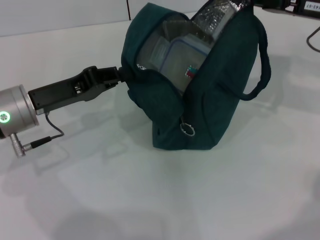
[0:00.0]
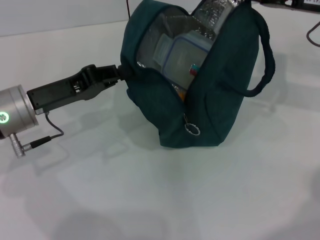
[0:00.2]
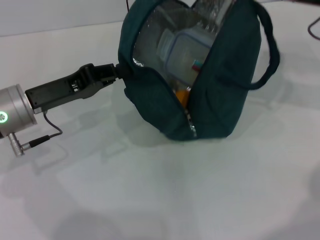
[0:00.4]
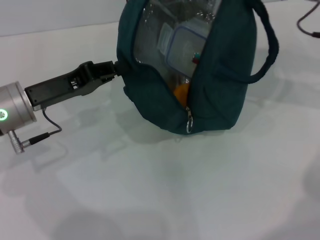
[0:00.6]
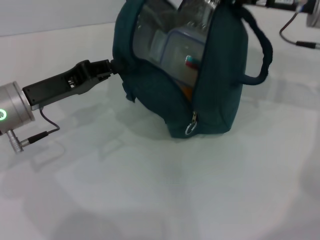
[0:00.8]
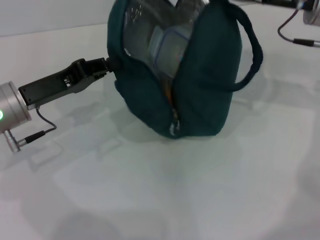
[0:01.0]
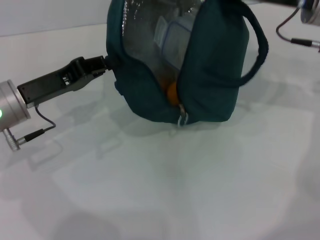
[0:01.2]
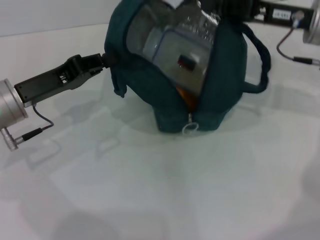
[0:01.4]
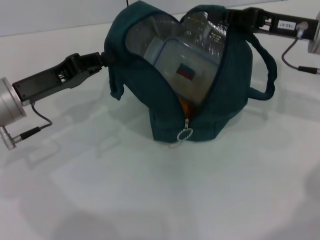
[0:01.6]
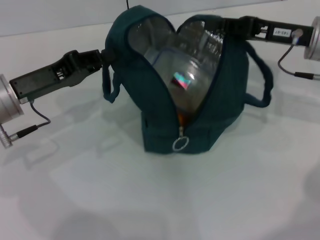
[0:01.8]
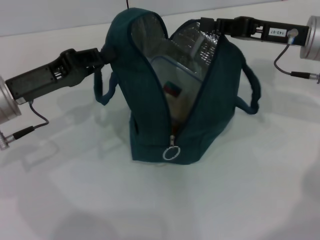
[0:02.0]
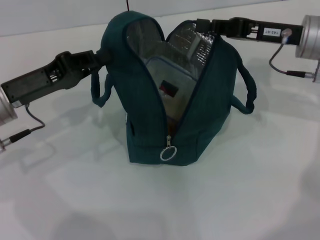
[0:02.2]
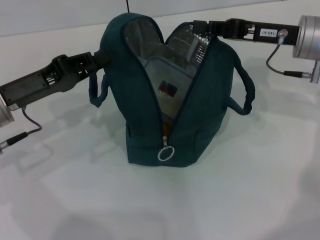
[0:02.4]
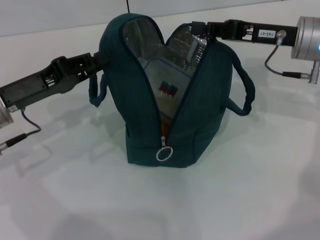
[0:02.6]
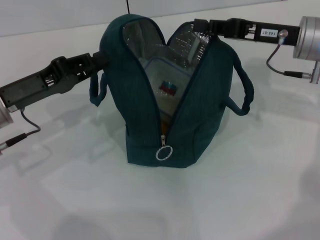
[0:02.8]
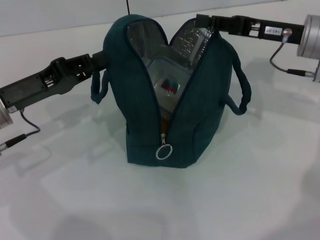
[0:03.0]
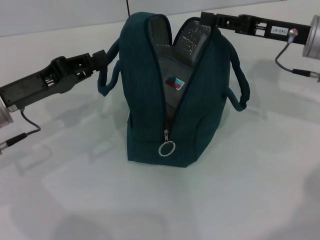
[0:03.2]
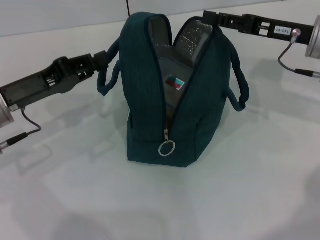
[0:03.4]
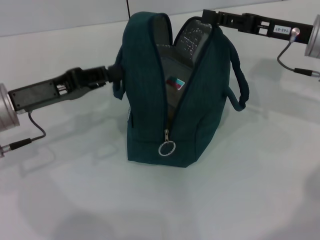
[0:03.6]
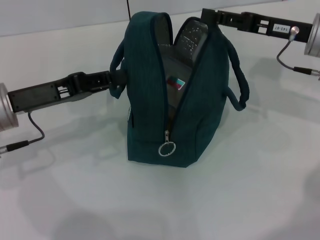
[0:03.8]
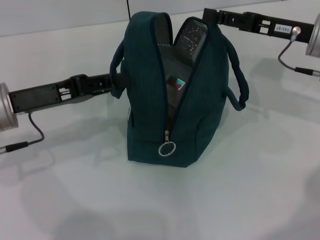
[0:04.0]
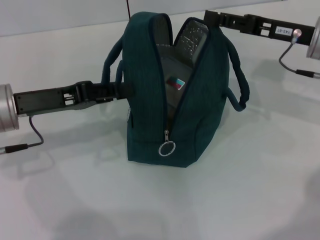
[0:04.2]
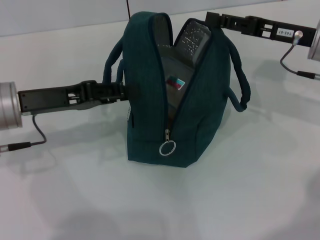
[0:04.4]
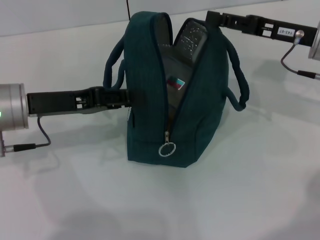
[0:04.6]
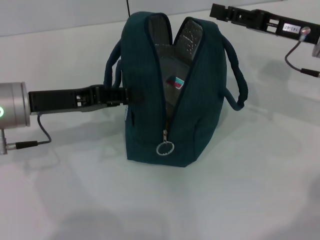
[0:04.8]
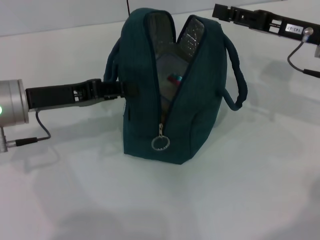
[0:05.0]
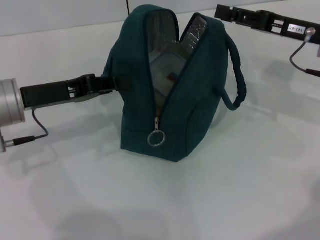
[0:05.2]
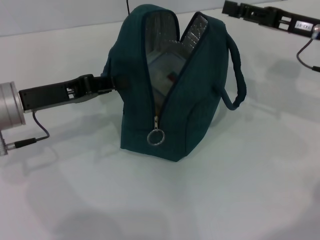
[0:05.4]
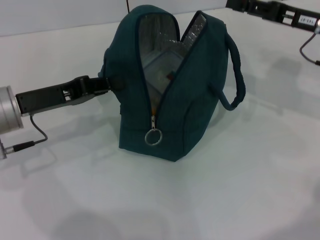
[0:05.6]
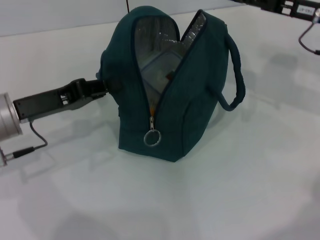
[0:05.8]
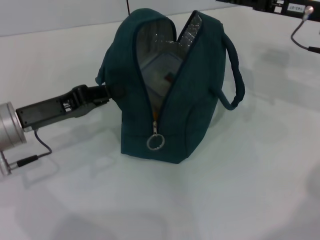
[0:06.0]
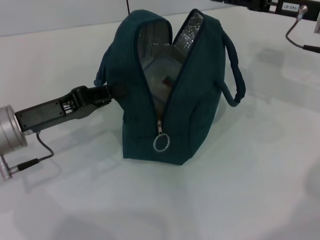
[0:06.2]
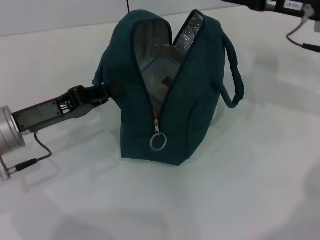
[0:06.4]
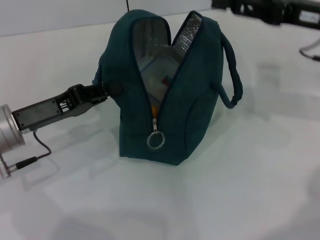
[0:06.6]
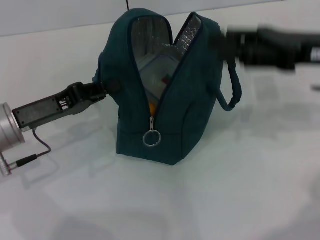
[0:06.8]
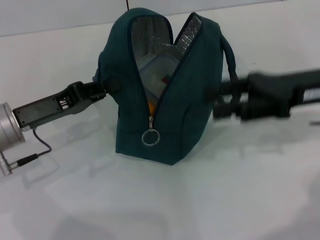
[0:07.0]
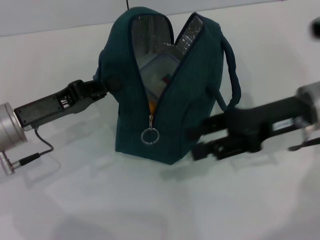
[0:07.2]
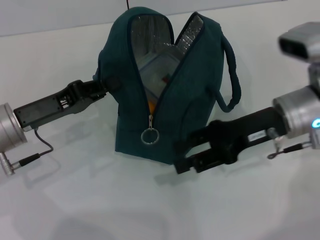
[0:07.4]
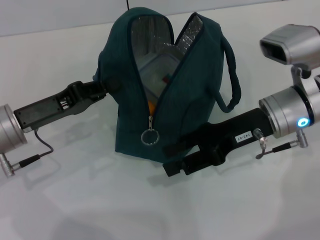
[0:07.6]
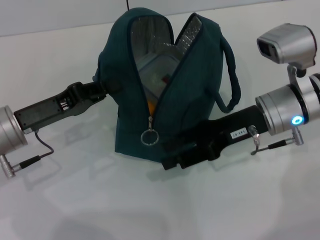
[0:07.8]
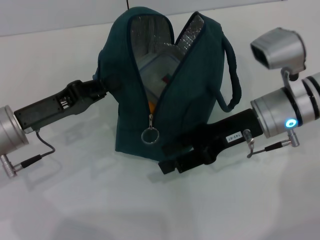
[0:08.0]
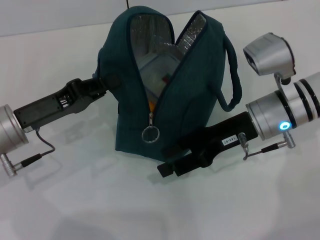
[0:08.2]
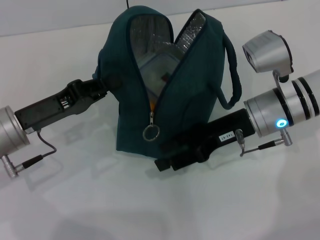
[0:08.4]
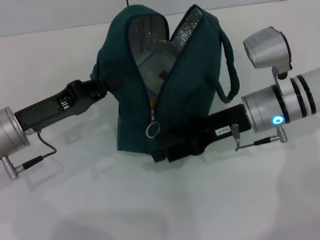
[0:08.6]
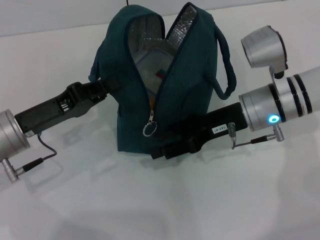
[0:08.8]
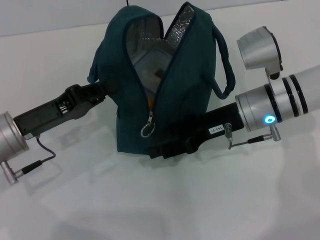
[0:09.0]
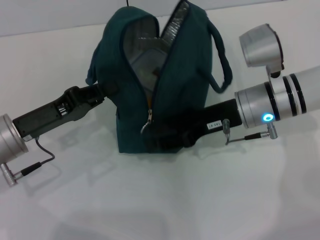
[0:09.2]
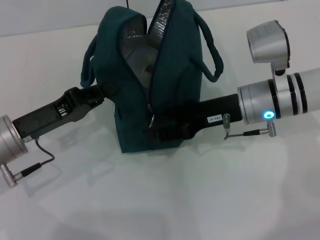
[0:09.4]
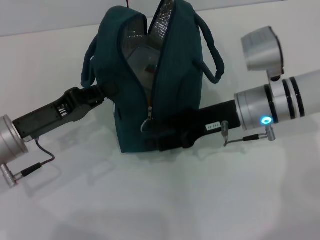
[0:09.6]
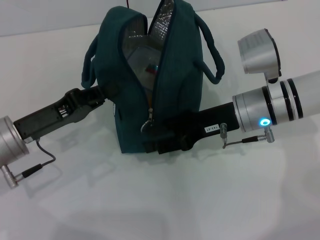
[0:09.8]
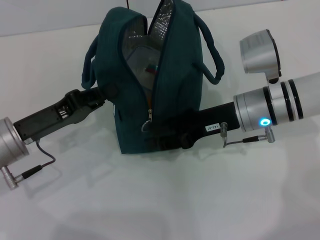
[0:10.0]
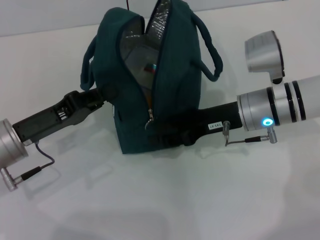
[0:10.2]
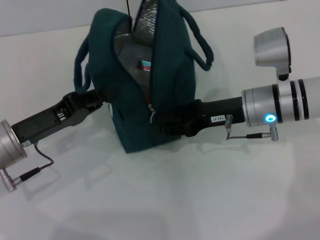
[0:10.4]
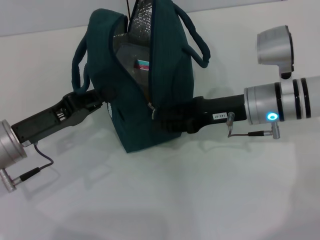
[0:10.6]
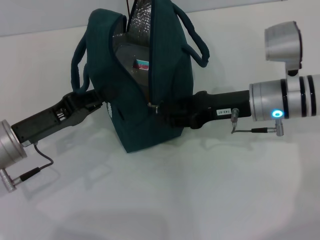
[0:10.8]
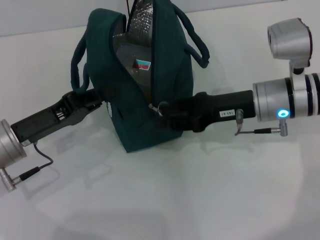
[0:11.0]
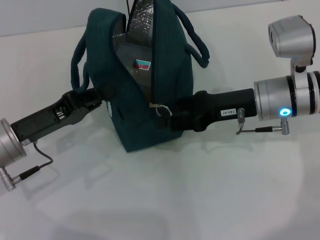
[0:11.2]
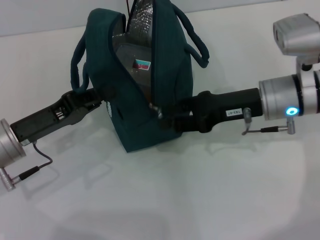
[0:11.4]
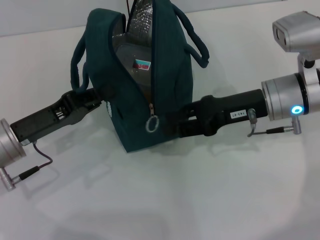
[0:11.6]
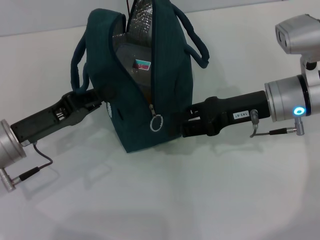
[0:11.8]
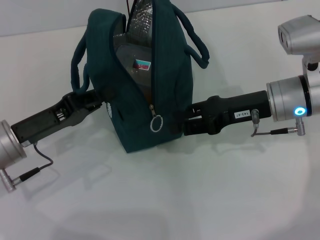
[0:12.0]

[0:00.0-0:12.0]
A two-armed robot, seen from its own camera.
Step, 0:00.0 to 0:03.0: Hold the lunch bag with your left hand.
0:00.0 to 0:01.6: There are only small adjustments of the grippers.
0:03.0 to 0:04.4: The right gripper opens up.
0:04.4 to 0:06.0: The left gripper closes its fingers.
0:06.0 to 0:07.6: The right gripper travels to the left, backward and downward by approximately 15 cm.
0:10.4 to 0:12.0: The grippers make only small movements.

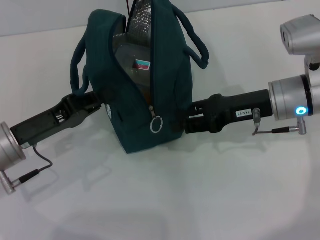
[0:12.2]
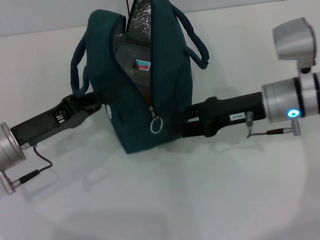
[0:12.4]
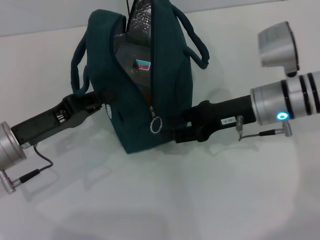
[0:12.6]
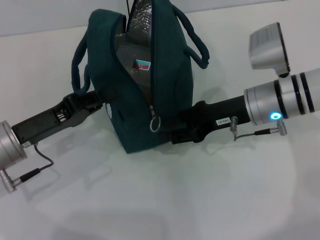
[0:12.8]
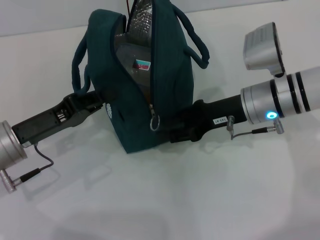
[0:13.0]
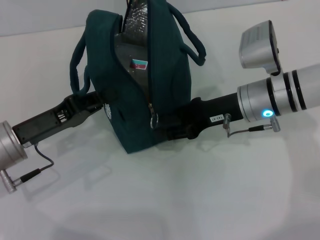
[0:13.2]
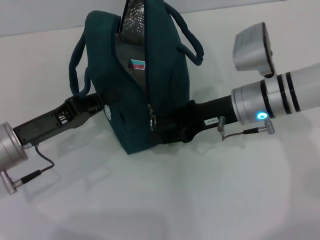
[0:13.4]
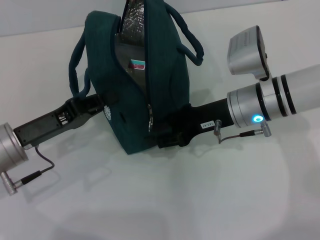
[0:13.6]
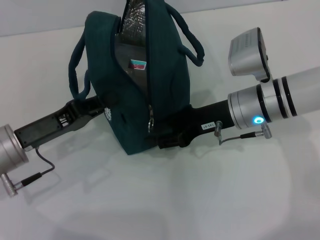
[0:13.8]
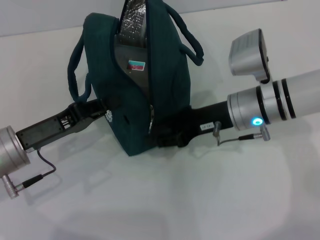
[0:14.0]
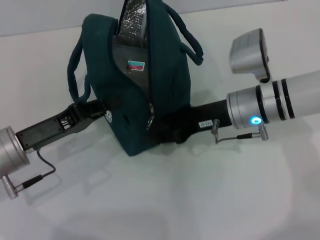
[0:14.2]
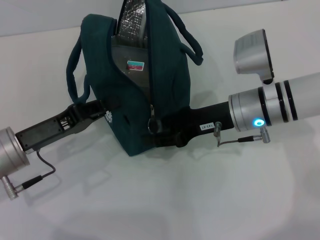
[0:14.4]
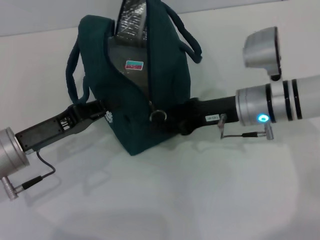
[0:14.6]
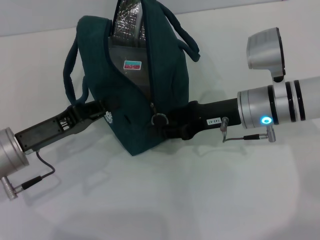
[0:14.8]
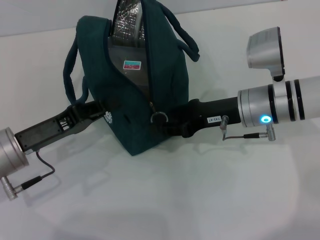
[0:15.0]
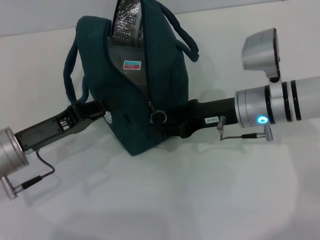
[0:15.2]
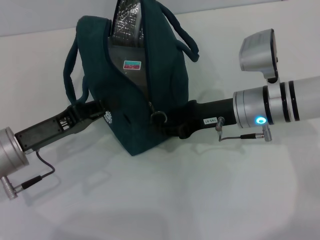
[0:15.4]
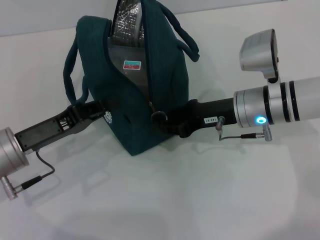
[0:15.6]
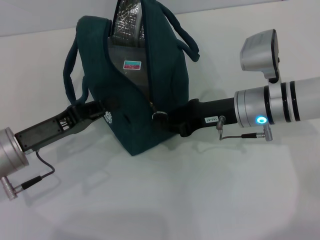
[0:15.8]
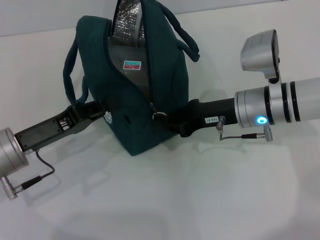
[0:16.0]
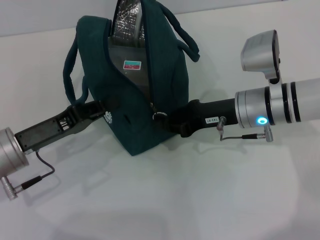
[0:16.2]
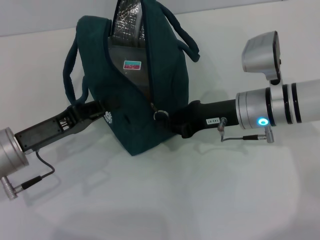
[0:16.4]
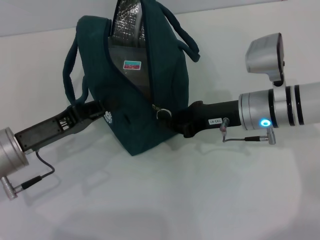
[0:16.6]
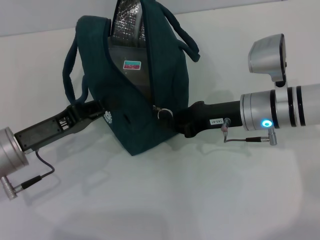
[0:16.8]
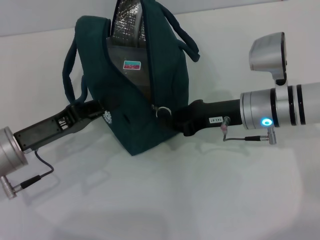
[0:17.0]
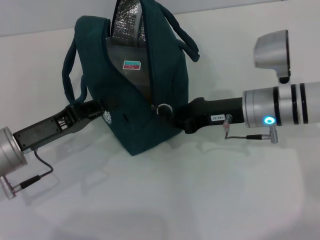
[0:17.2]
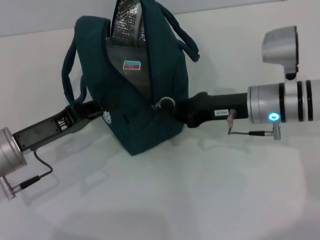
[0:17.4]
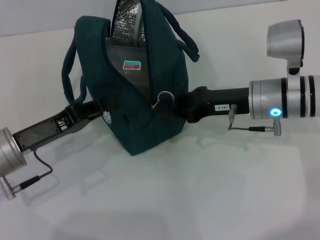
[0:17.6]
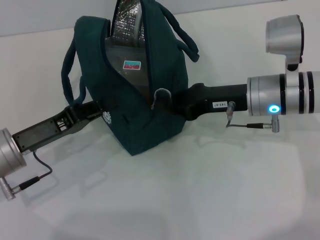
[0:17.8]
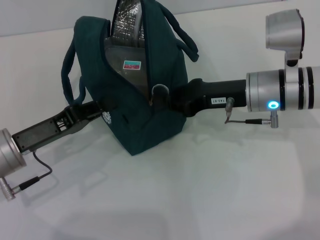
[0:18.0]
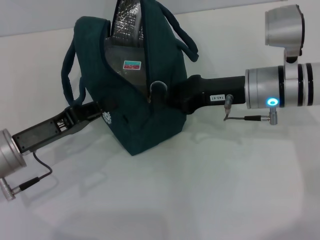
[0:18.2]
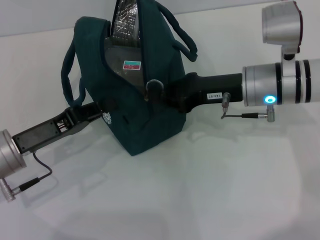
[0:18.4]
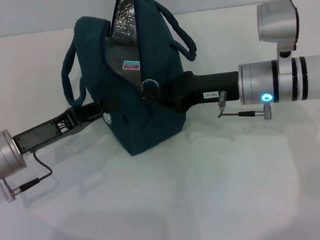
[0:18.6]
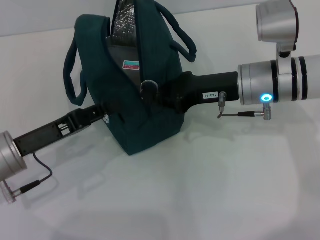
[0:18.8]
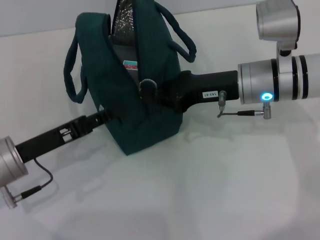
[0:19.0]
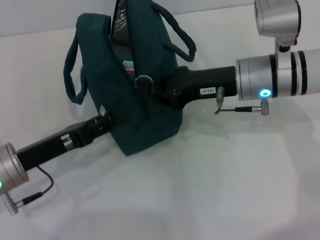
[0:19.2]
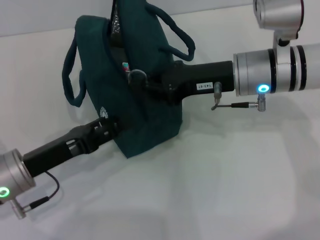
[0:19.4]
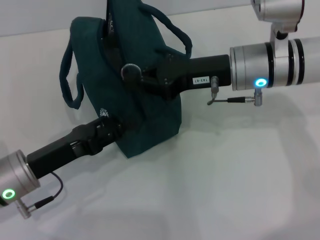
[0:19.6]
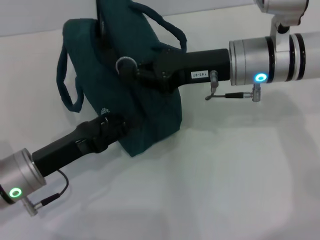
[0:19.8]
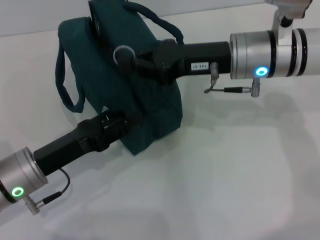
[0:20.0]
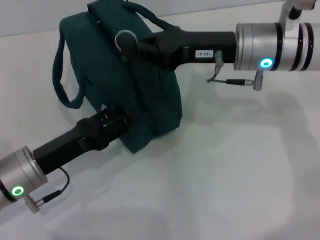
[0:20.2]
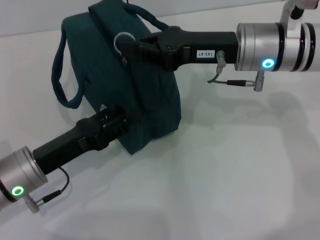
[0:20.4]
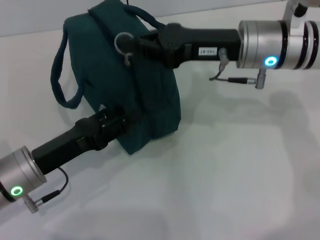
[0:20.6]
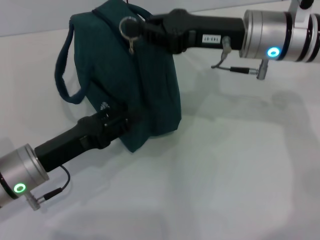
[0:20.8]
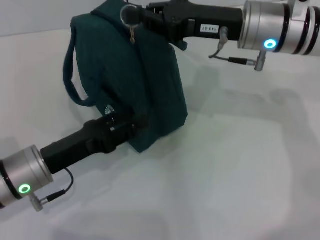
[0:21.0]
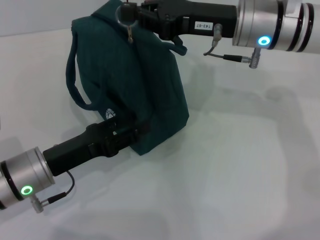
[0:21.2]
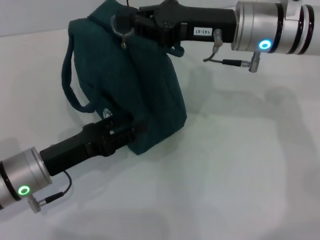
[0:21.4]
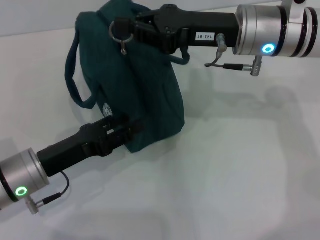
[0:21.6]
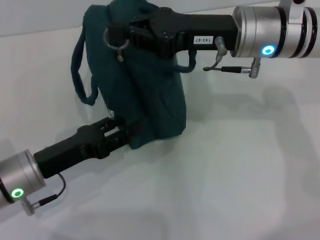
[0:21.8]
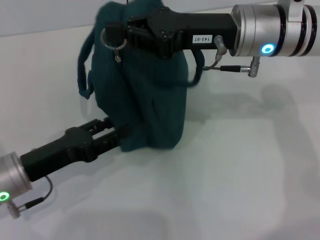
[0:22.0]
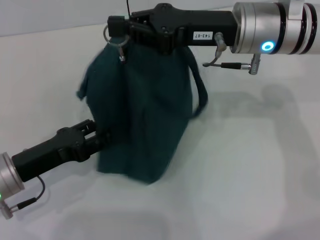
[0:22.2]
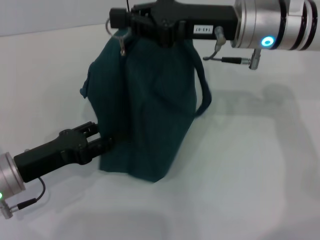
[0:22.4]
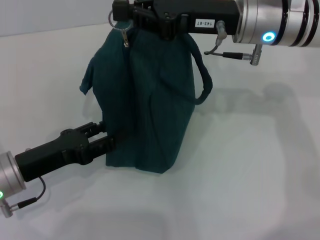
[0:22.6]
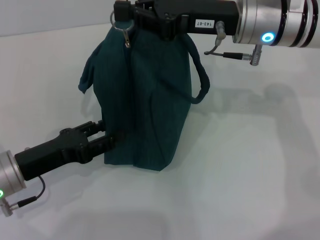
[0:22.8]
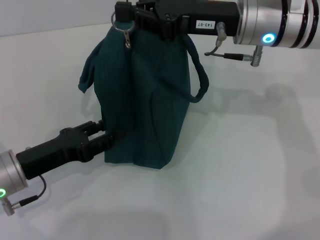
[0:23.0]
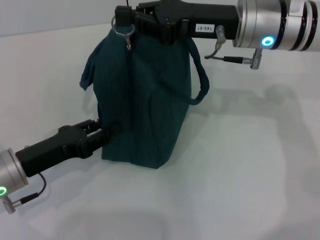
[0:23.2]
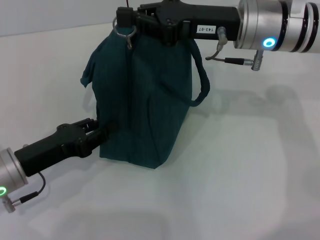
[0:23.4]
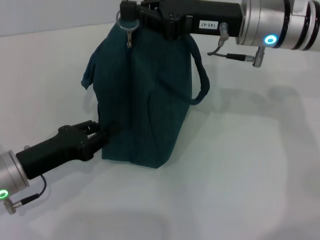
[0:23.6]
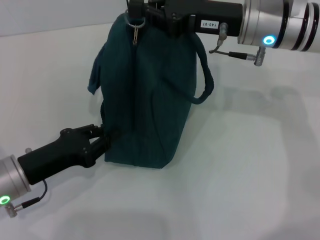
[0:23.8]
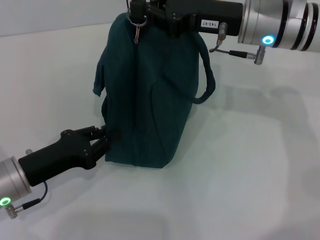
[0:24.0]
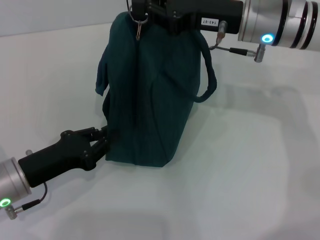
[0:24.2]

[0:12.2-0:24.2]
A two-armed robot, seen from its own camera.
0:12.2 to 0:13.8: The right gripper travels to the left by approximately 5 cm.
0:13.8 to 0:15.2: The grippers stay close to where they were, moving slightly.
0:15.2 to 0:16.6: The right gripper closes up.
0:16.6 to 0:18.2: There are only small adjustments of the grippers.
0:18.2 to 0:19.8: The left gripper opens its fingers, while the right gripper moves roughly 5 cm.
0:21.2 to 0:22.6: The grippers make only small movements.
0:22.6 to 0:24.2: The left gripper closes up.
